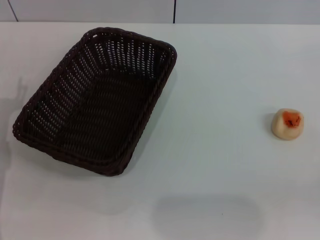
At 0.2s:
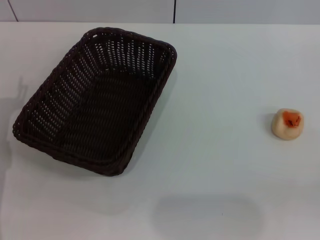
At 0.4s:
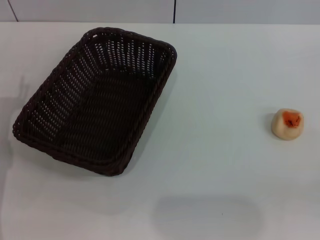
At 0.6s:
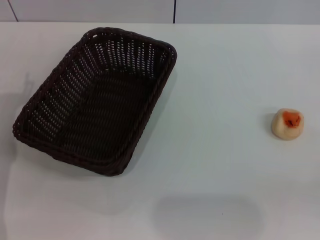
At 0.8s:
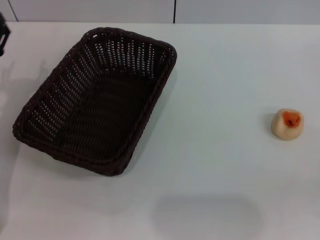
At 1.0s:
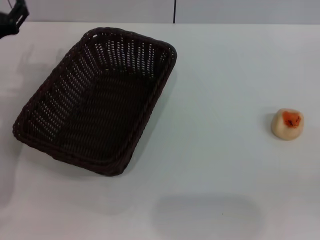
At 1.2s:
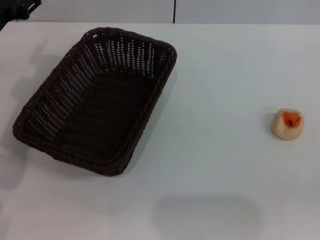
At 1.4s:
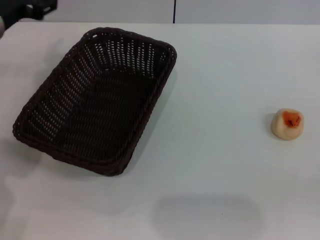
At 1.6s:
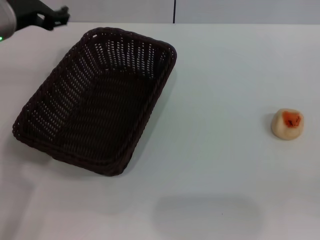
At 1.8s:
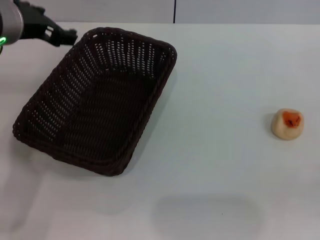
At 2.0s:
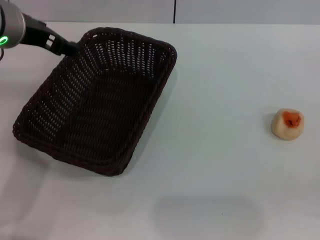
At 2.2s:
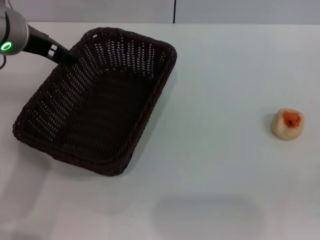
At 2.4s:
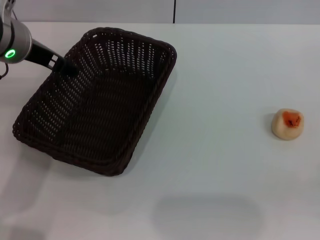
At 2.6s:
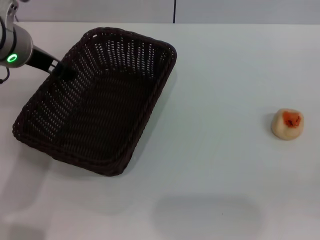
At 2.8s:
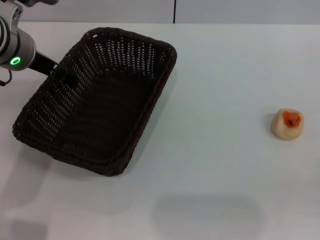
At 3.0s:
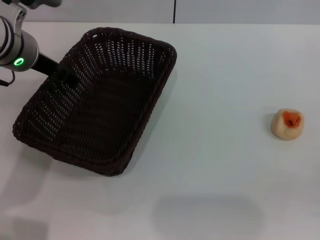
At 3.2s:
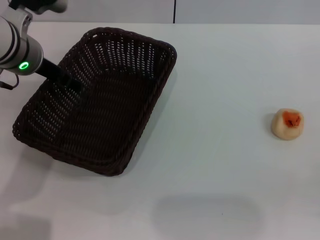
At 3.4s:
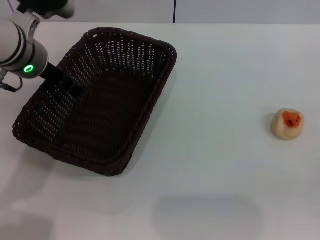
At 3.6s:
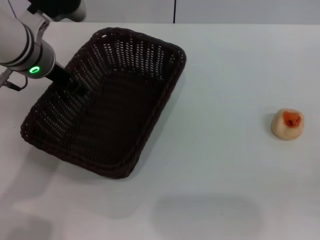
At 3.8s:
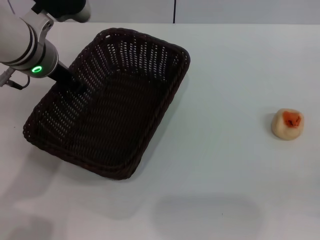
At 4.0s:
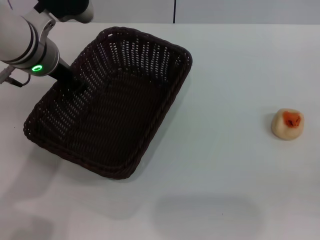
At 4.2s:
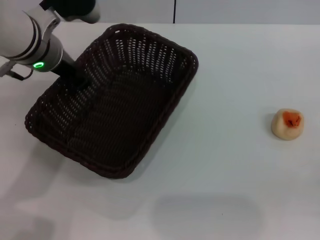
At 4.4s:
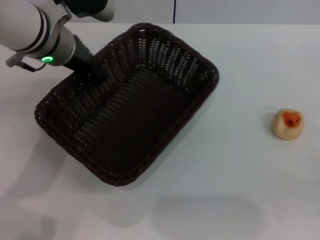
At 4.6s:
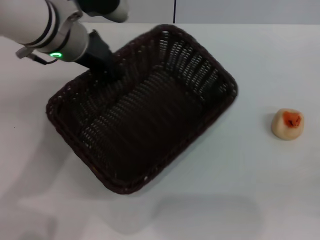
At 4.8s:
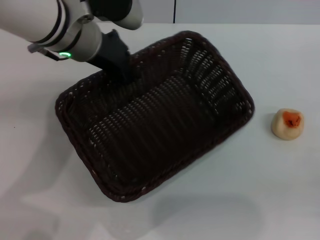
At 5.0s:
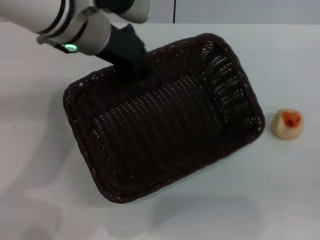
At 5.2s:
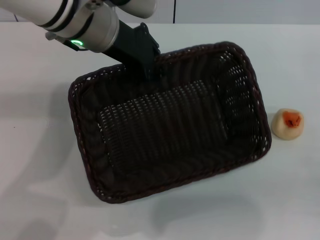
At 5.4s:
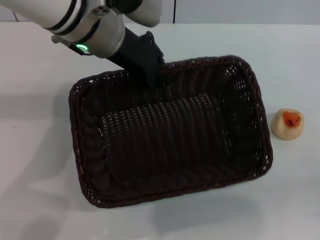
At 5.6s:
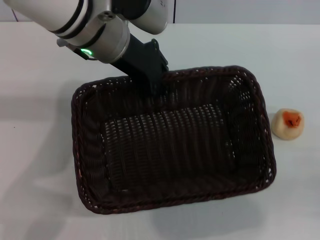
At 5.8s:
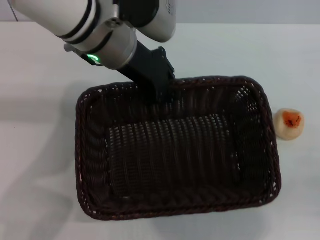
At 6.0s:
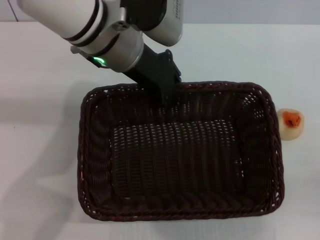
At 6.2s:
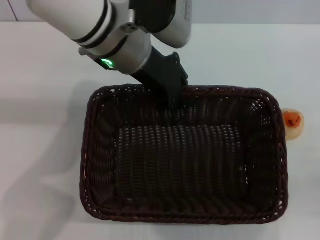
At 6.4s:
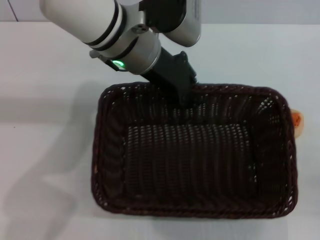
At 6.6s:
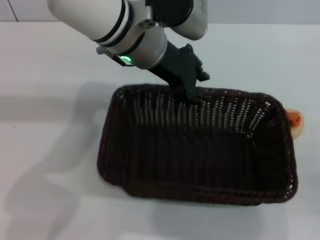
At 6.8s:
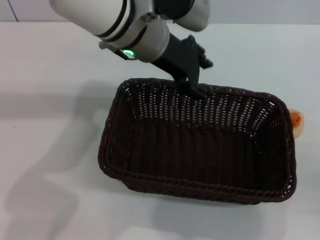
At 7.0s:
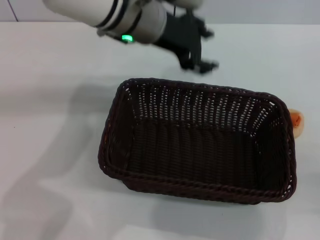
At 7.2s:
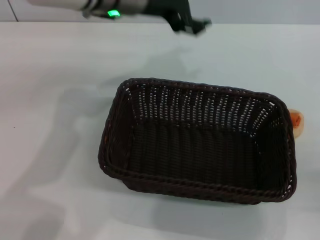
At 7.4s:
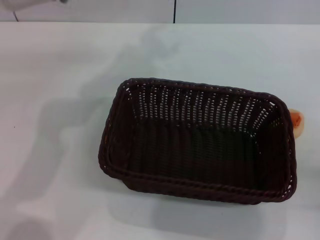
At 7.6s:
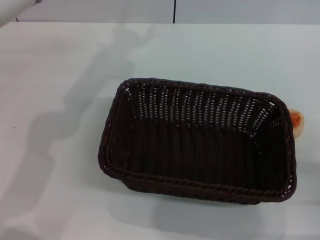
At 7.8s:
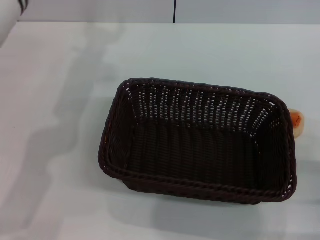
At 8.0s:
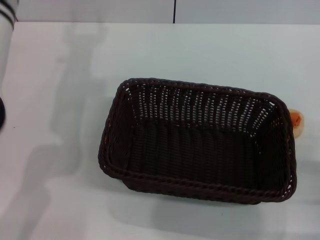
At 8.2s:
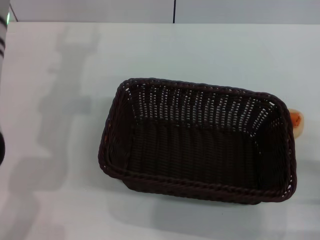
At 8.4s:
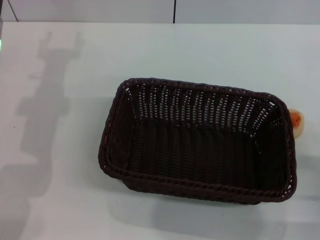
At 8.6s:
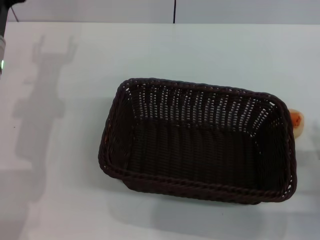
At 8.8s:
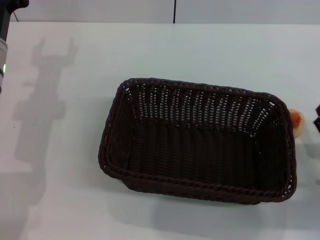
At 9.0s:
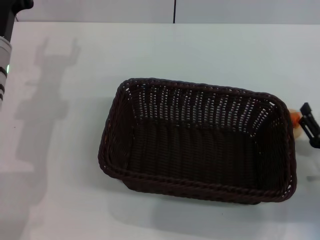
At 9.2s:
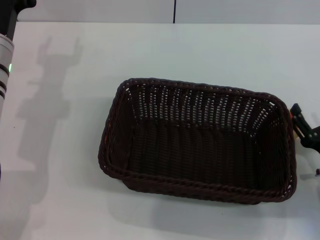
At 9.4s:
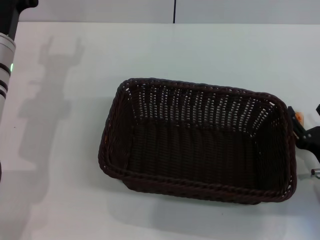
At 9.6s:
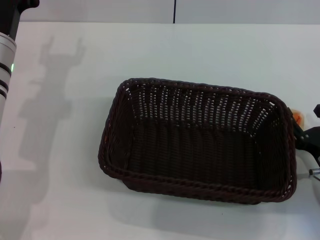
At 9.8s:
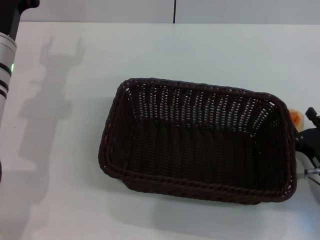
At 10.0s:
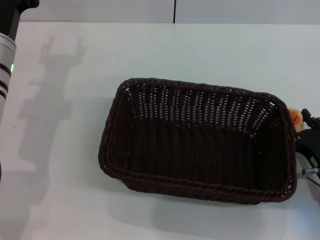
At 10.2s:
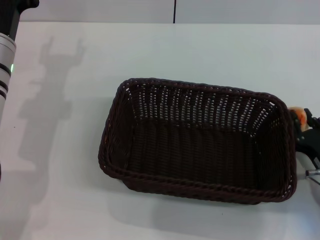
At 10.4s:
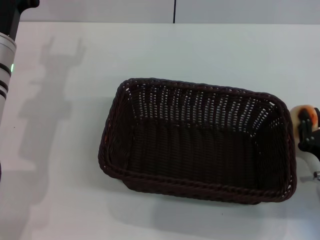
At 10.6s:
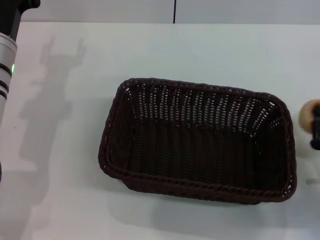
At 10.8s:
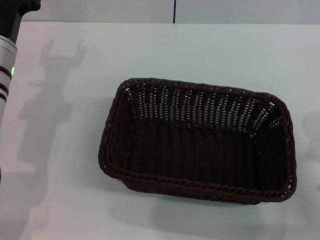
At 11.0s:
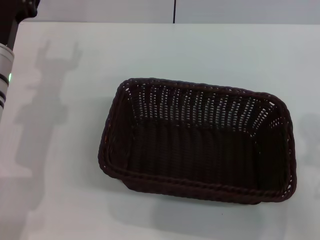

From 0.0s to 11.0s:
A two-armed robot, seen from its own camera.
Step, from 0.0s to 7.0s: Move the basket to the center of view with the left gripper.
Step, from 7.2s to 10.4s: Pick up the egg yolk pastry with the right gripper.
From 0.0s to 1.6s: The left gripper heads upward, forward and to the right, covering roughly 20 cm.
From 3.2s to 4.8s: The left gripper heads to the right, covering some 5 cm, and closes.
From 4.8s to 6.2s: The left gripper goes roughly 5 cm to the right.
From 6.2s to 7.8s: The left gripper shifts some 10 cm to the left, and opens.
From 7.8s to 9.4s: The left gripper goes roughly 10 cm downward and to the left; the right gripper shifts roughly 5 cm forward.
From 9.4s to 11.0s: The right gripper goes about 10 cm backward and upward, and closes.

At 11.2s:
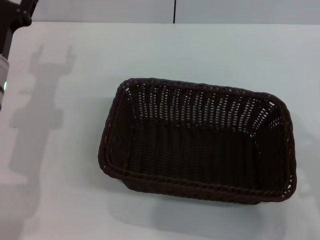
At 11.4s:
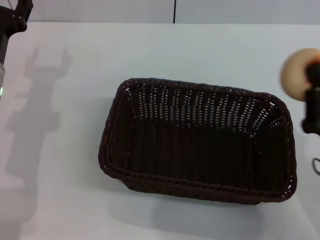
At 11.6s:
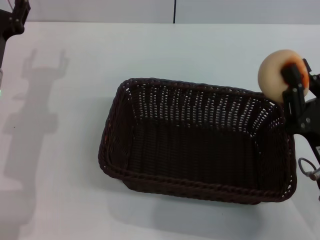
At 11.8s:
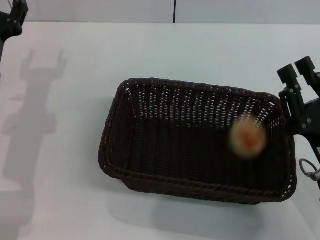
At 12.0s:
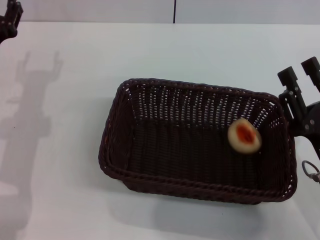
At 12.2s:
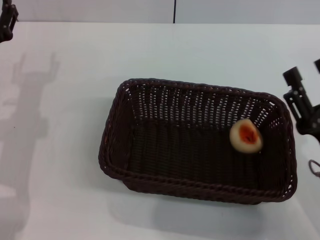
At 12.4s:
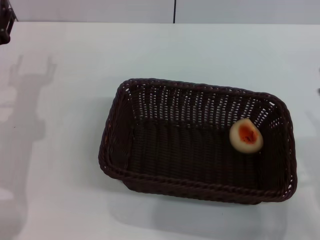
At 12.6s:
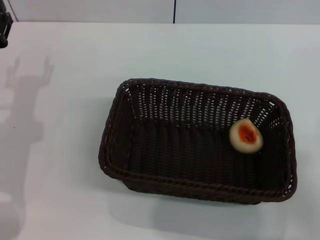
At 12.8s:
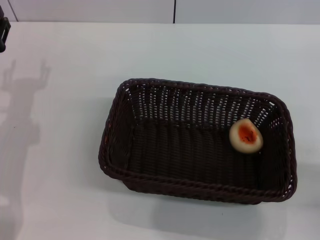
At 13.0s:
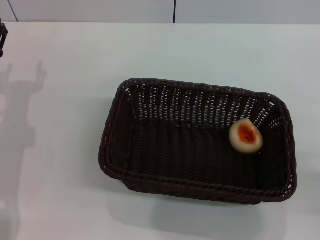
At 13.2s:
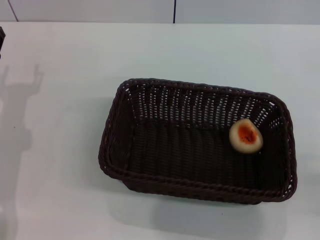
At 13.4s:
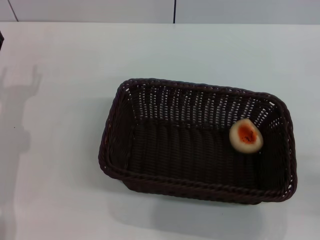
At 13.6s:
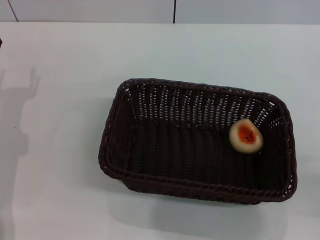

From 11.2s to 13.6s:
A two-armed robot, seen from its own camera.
Step, from 11.2s to 12.0s: Place the egg yolk pastry into the basket with the right gripper.
From 11.2s to 12.4s: The right gripper opens.
From 12.4s to 13.6s: The right gripper shifts about 10 cm to the right and backward.
